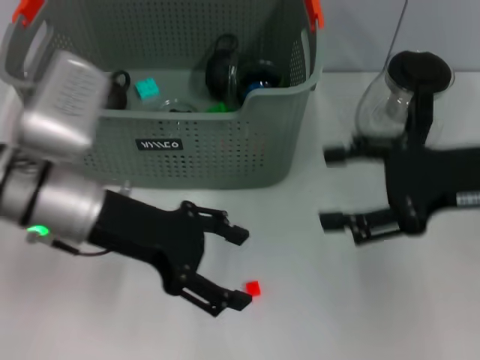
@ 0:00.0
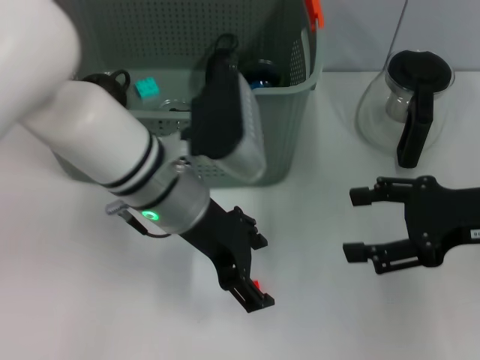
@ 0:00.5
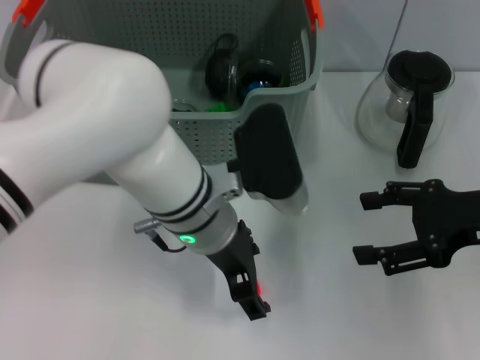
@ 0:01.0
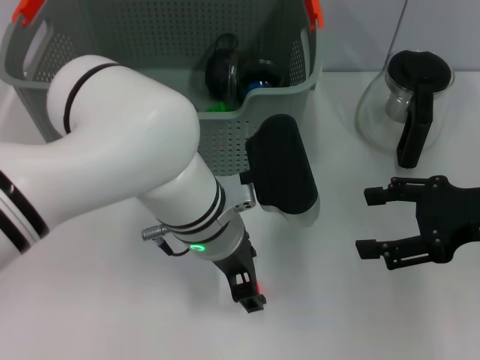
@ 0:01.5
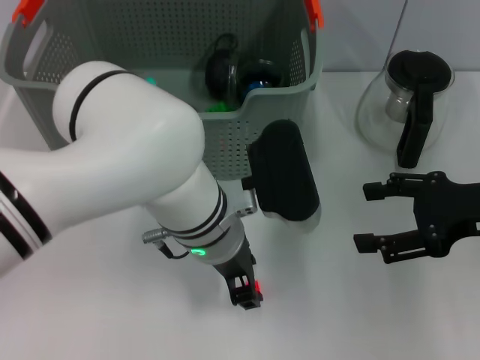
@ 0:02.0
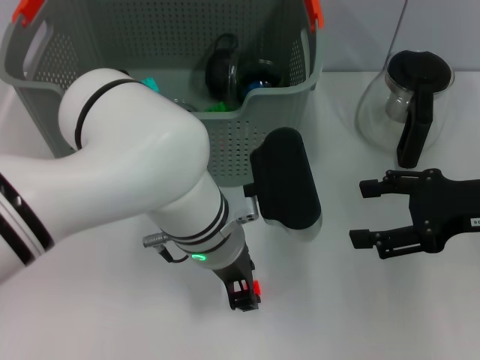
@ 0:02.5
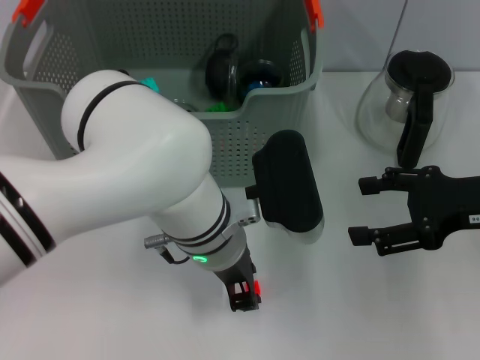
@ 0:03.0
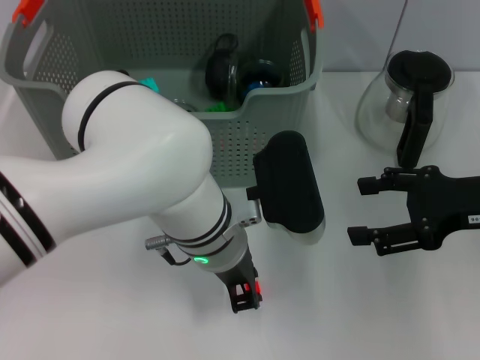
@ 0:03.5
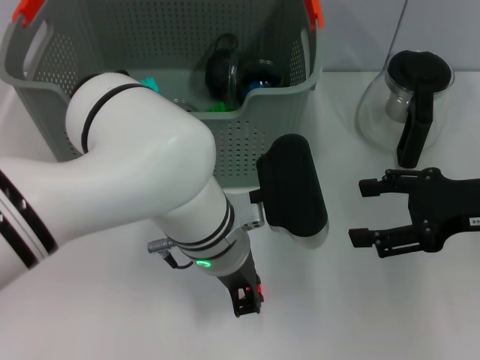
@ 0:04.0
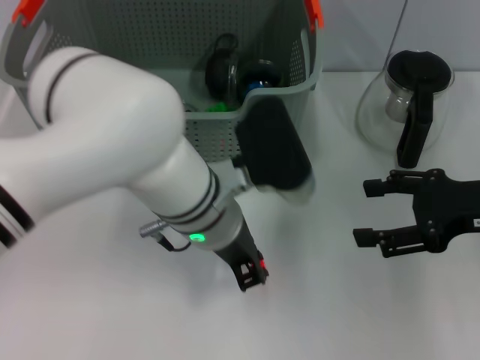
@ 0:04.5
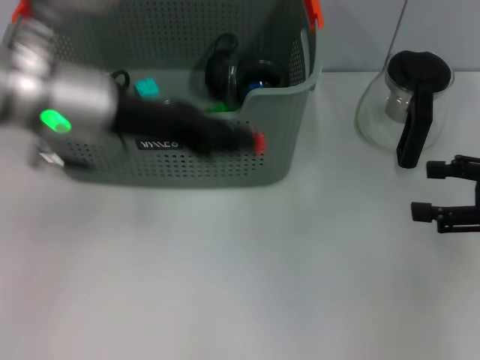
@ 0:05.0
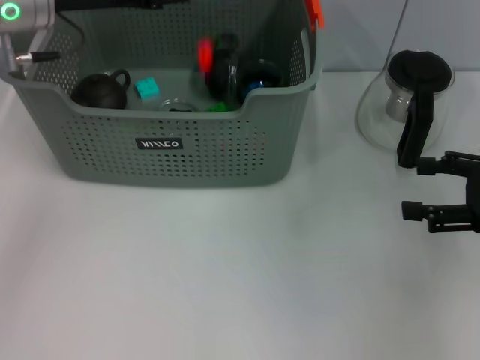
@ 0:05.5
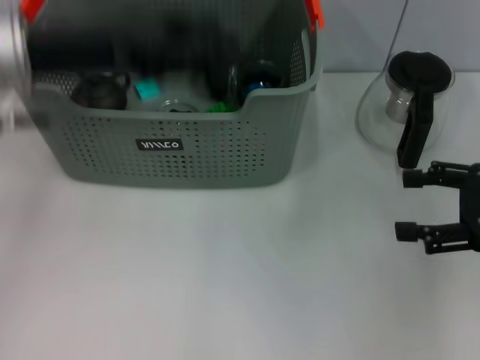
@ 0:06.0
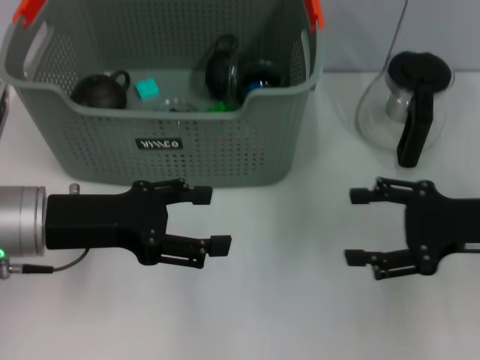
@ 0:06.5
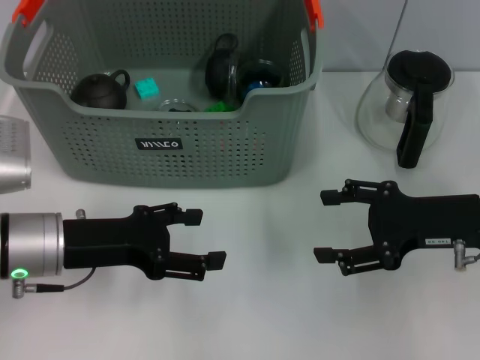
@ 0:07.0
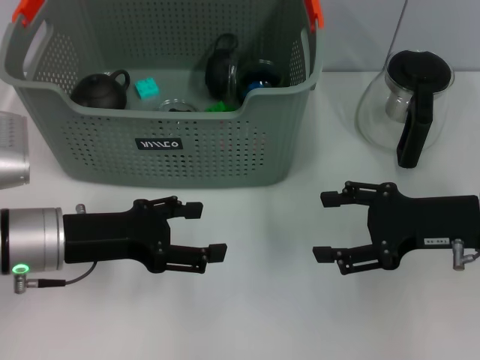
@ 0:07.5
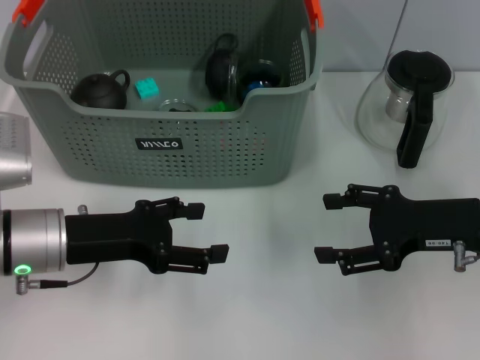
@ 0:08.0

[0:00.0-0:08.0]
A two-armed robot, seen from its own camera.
Task of the whole recording: pick up the teacup on the table and place it into the storage bin, pick up the block on the table and place it into the storage bin.
Step, 0:00.0 to 0:03.5: Grasp the orange block with left gripper.
Step, 0:04.0 to 0:05.5: Place the orange block in the storage box with right gripper.
0:00.0 to 0:02.0: The right gripper ends up some 5 cm from where it was. Meanwhile the left gripper travels to the right by approximately 15 cm.
0:02.0 to 0:04.0: The left gripper closes its fingers.
0:04.0 to 0:06.0: The left gripper goes about 20 cm to the left and upward, and opens up.
0:06.0 to 0:08.0: The right gripper moves to the left, roughly 5 cm. The left gripper travels downward and backward by approximately 15 cm, and opens.
